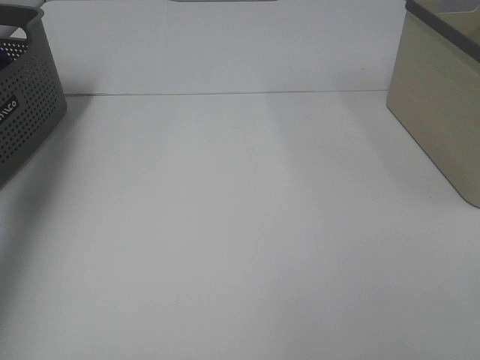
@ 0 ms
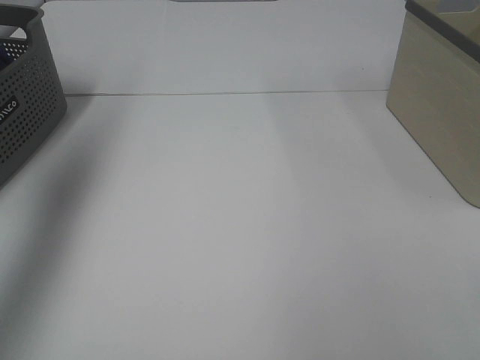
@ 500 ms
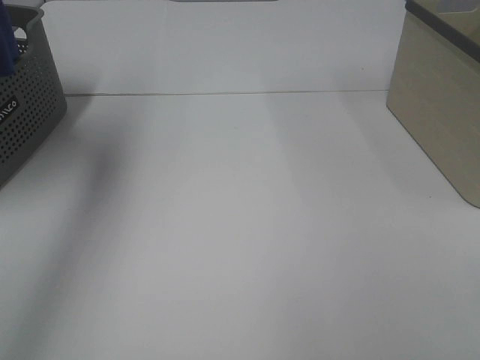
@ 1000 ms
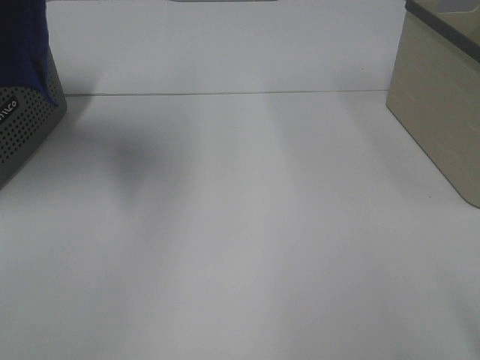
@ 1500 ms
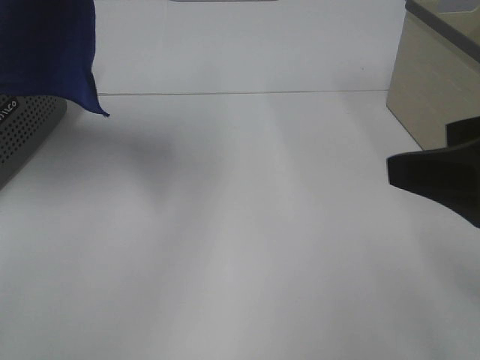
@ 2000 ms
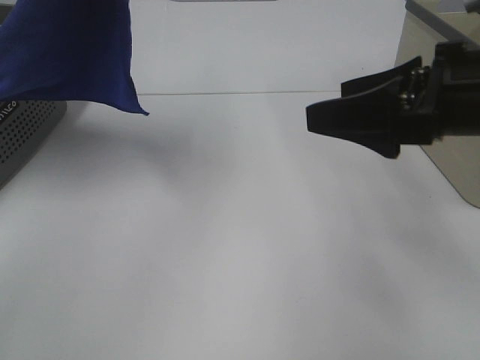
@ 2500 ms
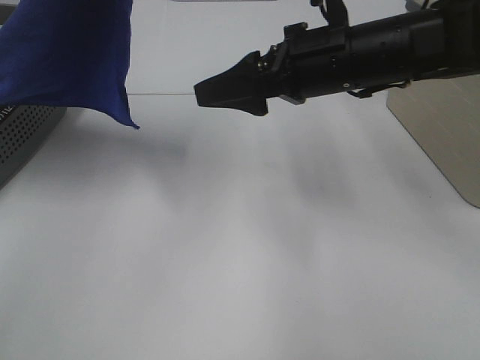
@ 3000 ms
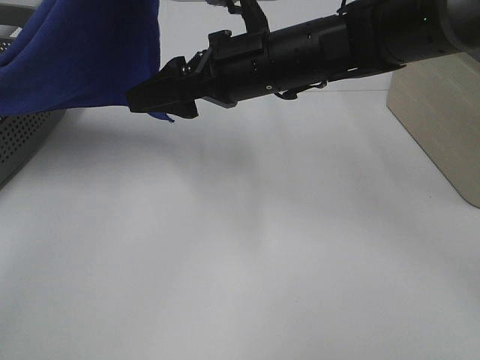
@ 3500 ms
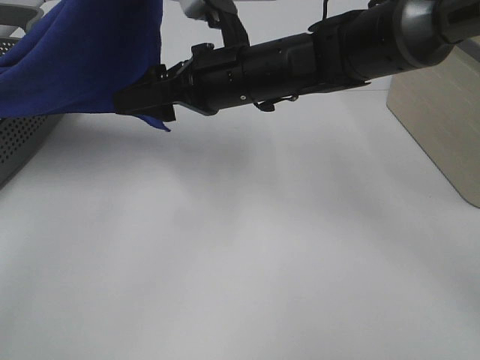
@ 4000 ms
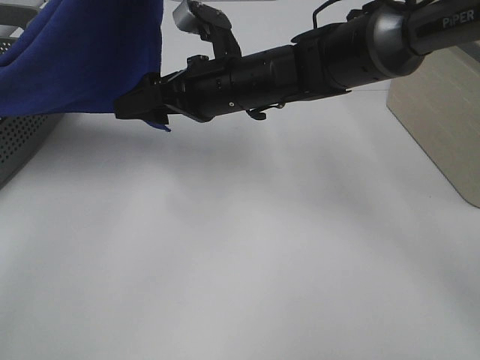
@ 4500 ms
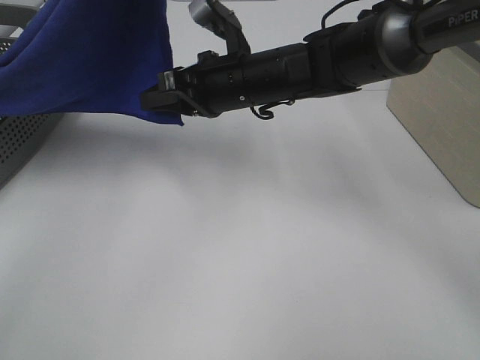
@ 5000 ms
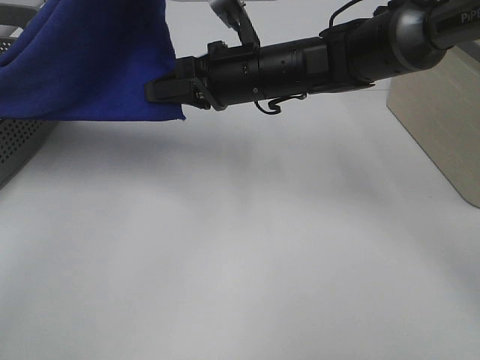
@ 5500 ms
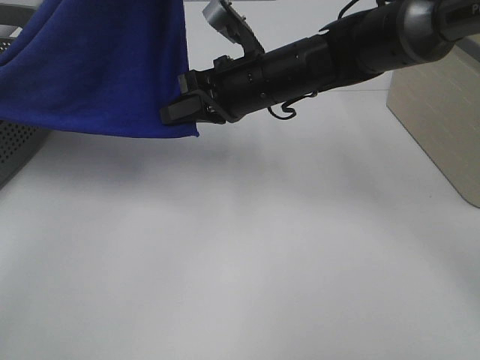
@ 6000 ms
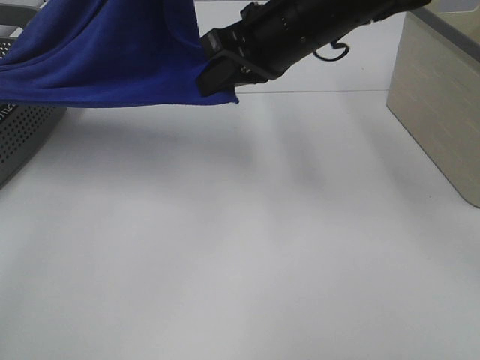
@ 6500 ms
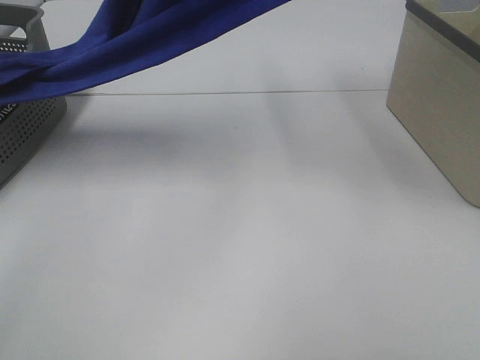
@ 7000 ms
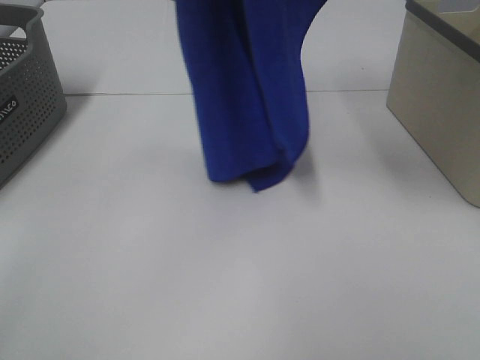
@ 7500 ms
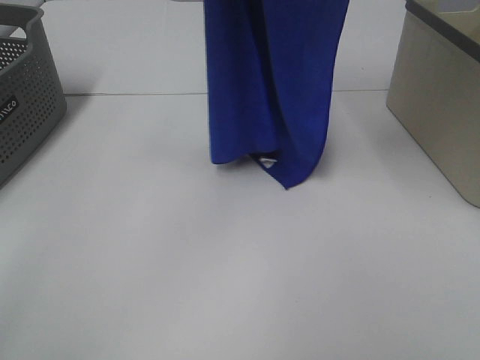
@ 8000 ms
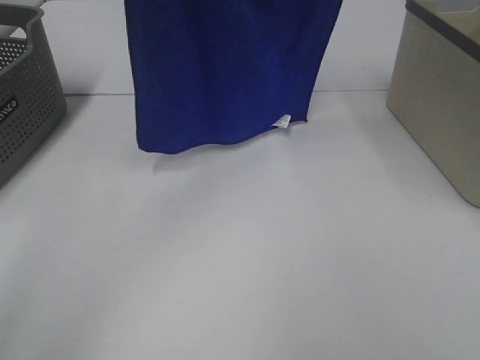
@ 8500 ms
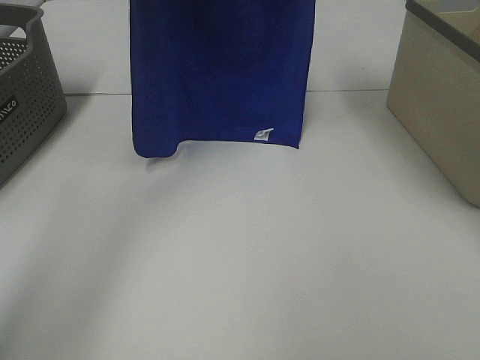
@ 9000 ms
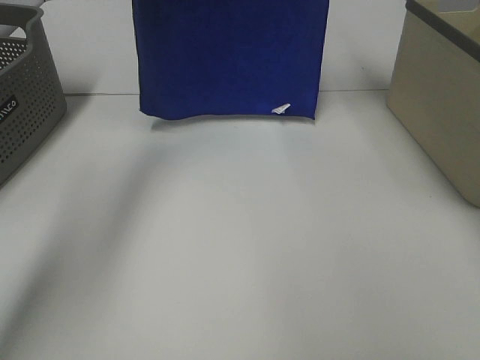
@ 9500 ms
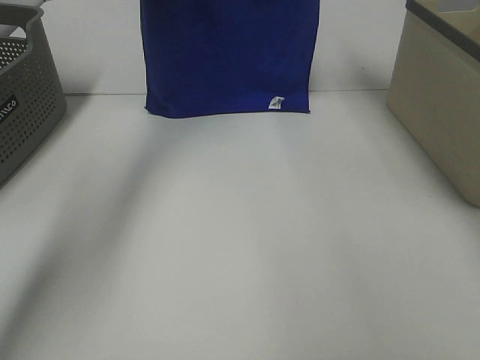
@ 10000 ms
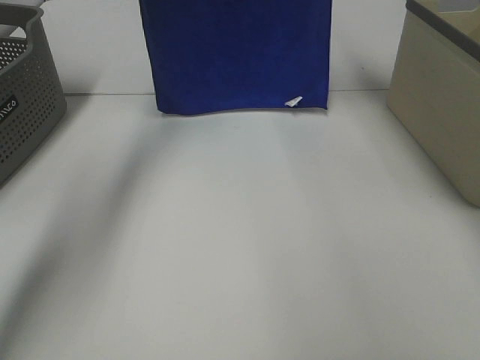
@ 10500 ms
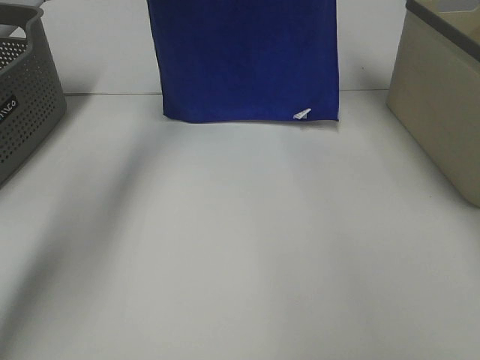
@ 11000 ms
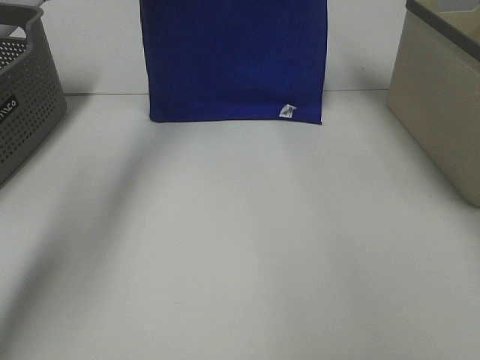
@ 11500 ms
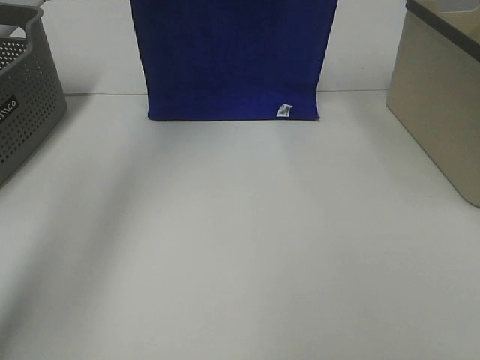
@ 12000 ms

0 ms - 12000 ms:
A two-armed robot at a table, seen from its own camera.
Task of the whole recording: Remove the towel and place it.
Step, 500 ms - 5000 ms: Right hand: grab a corner of the blue towel and straighten it.
0 ms - 2000 ms: The left gripper is displaced to the right, upward and backward by about 30 cm, while the right gripper shifts some 15 cm forward.
2000 ms - 4000 ms: The right gripper goes roughly 30 cm to the left and forward, while the left gripper ends up some 5 cm from where it was.
4000 ms - 6000 ms: The right gripper closes.
6000 ms - 8000 ms: The left gripper is displaced upward by roughly 5 cm. Meanwhile the right gripper goes roughly 35 cm upward and to the right.
8000 ms - 10000 ms: The two grippers go about 15 cm forward and downward.
10000 ms - 12000 ms: The left gripper is displaced backward and upward by approximately 10 cm; the right gripper shifts some 10 cm backward.

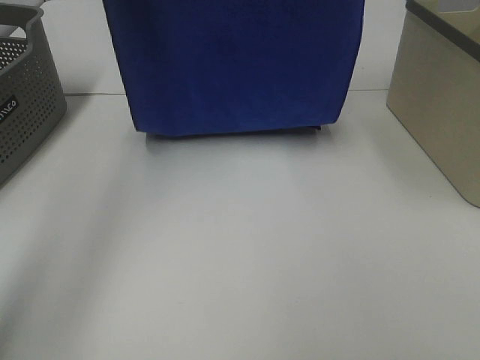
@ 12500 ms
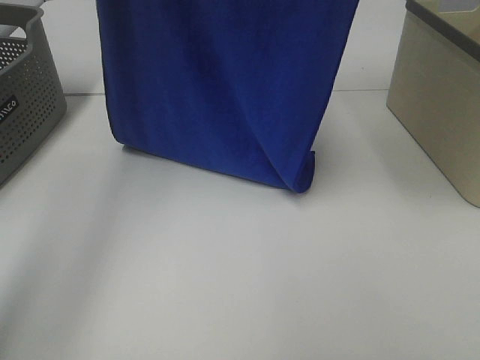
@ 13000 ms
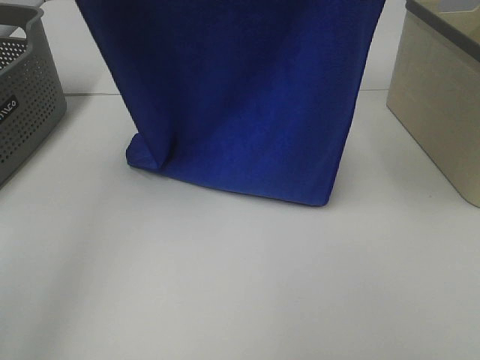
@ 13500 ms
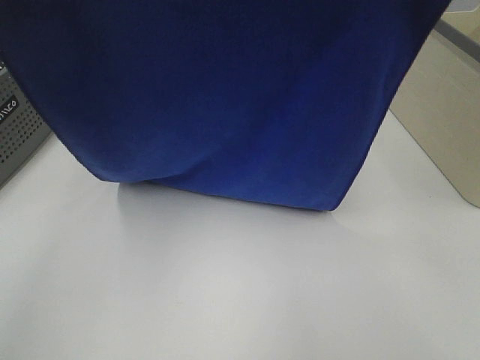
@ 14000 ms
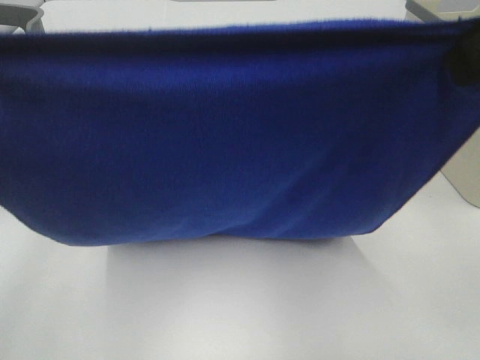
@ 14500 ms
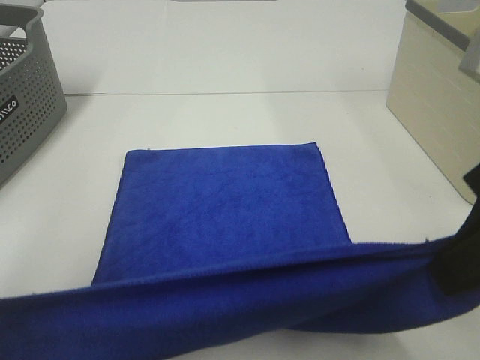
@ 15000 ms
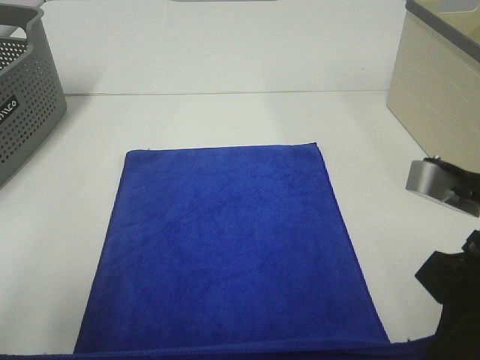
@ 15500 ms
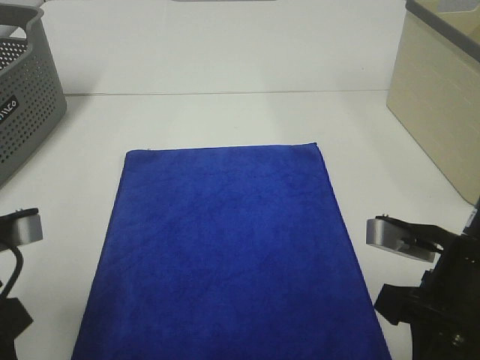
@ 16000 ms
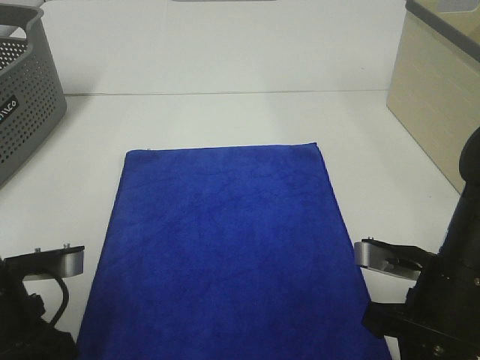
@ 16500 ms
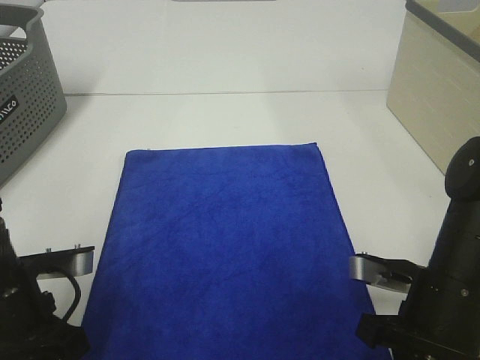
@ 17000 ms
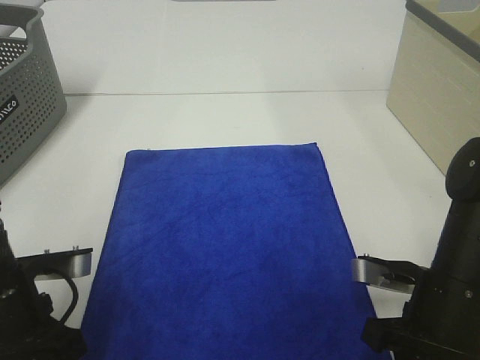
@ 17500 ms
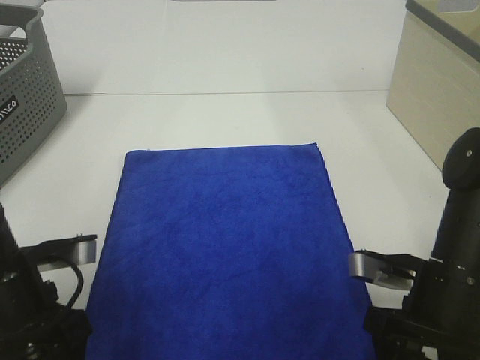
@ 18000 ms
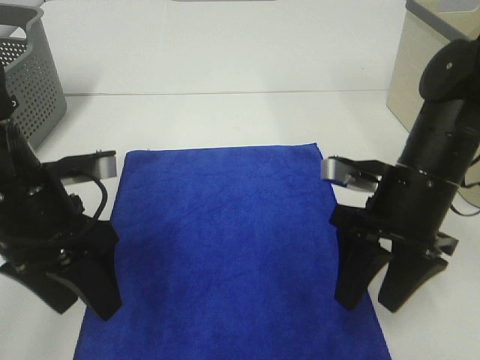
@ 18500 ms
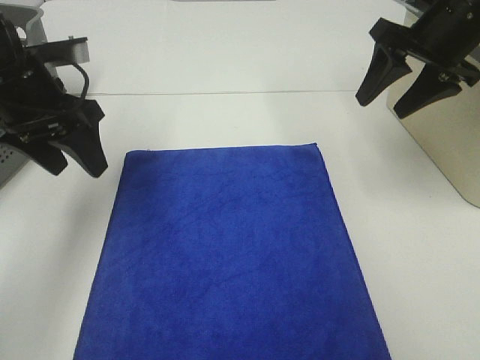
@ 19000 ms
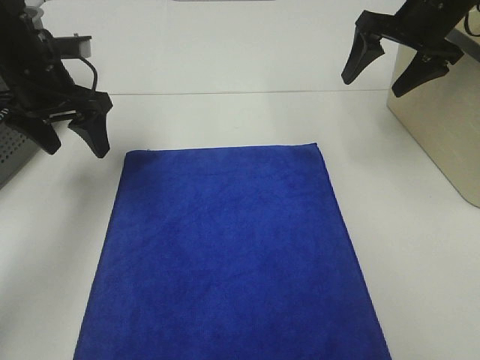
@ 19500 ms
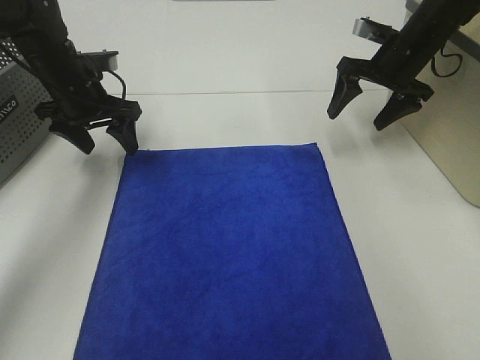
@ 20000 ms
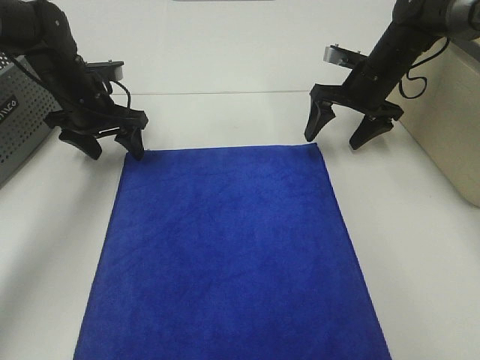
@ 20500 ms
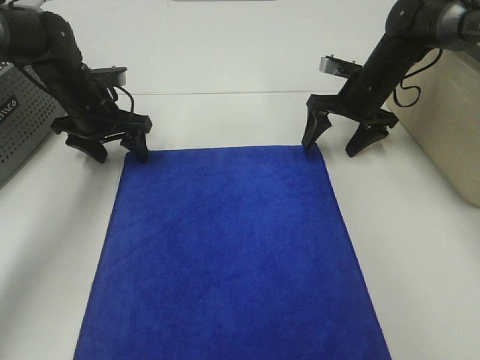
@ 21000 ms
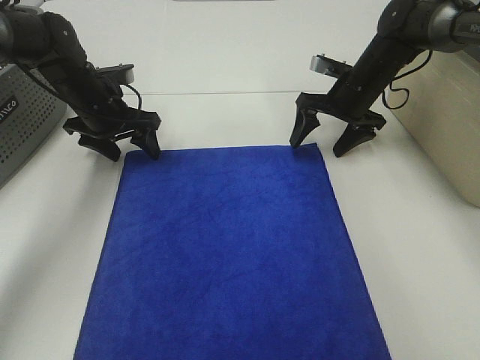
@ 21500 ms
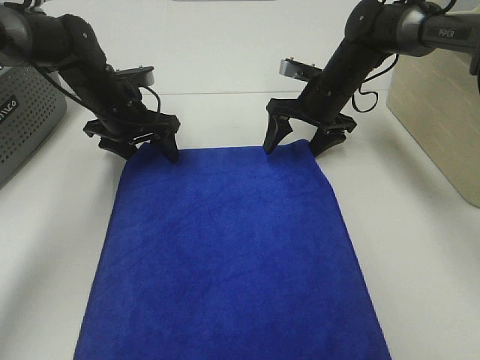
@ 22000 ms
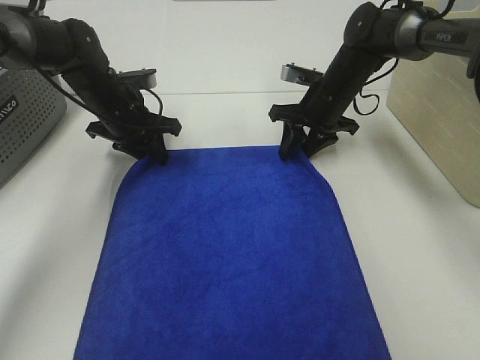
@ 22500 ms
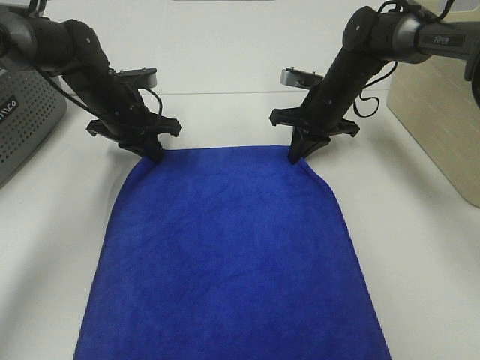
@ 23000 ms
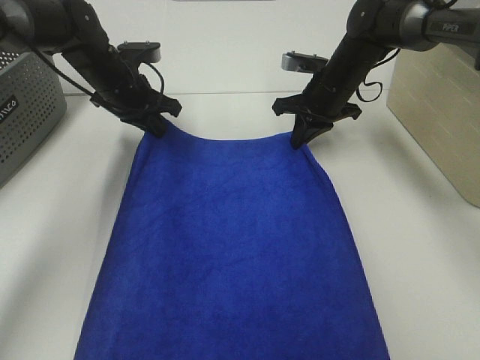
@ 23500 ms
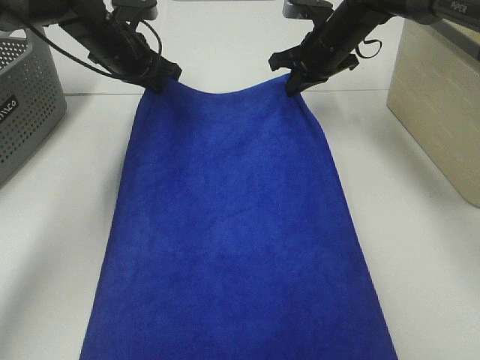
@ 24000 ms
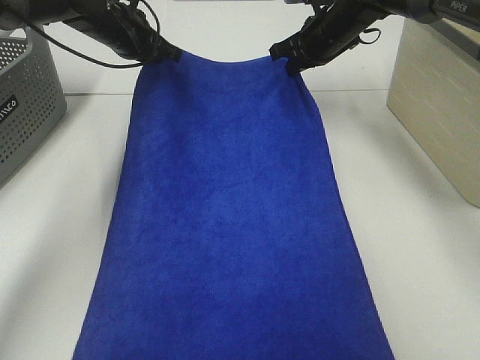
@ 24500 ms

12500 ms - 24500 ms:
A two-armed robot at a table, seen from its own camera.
Task of the whole recording: Remove the towel and place it.
Step, 12500 ms - 20000 ms: Left hand:adjust the blue towel.
Step, 12500 ms - 20000 ms: Right hand:adjust the blue towel.
12500 ms - 14500 ms: Both grippers move backward and downward, some 25 cm.
14500 ms - 16500 ms: Both grippers travel together downward, roughly 25 cm.
16500 ms - 18500 ms: The left gripper heads forward and upward, covering approximately 10 cm, and opens its fingers. Meanwhile the right gripper is displaced forward by roughly 10 cm, and opens its fingers.
18500 ms - 20500 ms: Both grippers move forward, some 25 cm.
20500 ms - 22500 ms: The left gripper closes up; the right gripper heads to the left, covering about 5 cm, and closes its fingers.
22500 ms - 24500 ms: The grippers both shift upward and forward by roughly 10 cm. The right gripper closes its fingers.

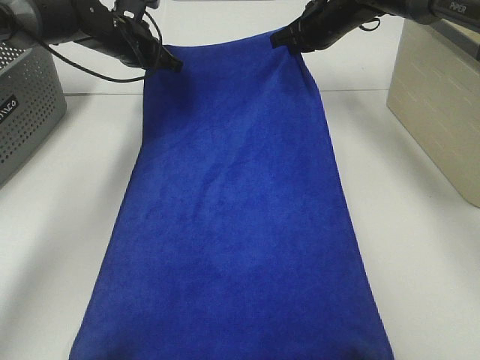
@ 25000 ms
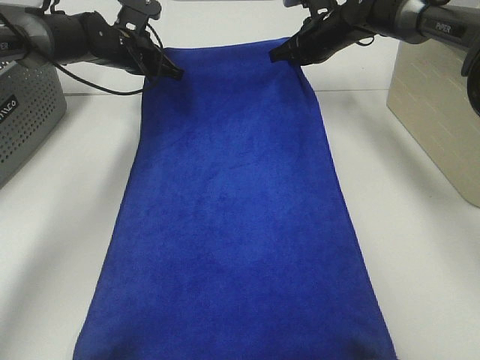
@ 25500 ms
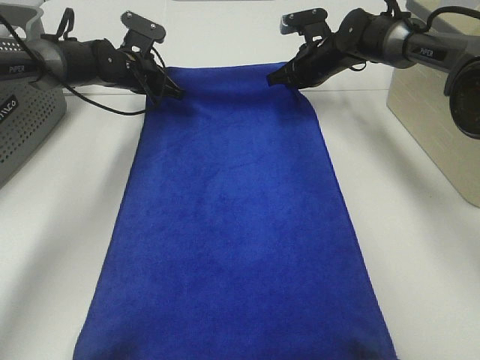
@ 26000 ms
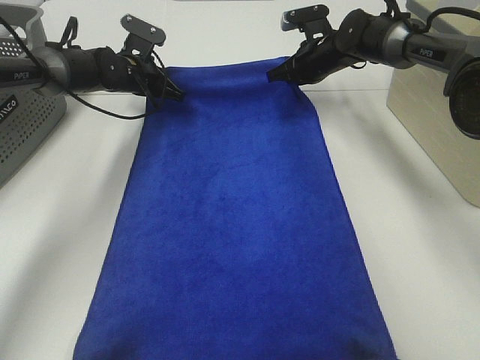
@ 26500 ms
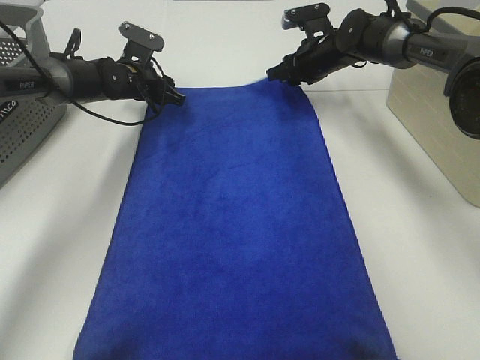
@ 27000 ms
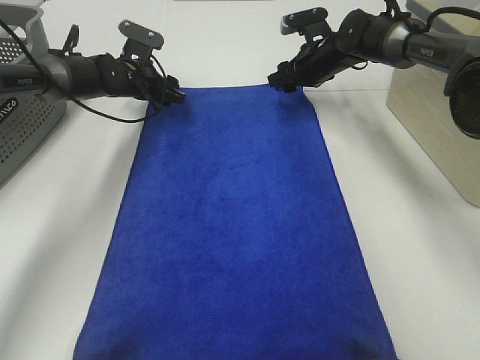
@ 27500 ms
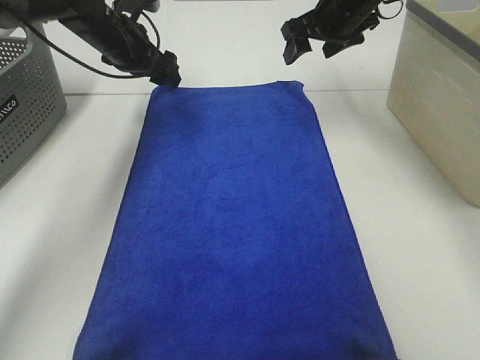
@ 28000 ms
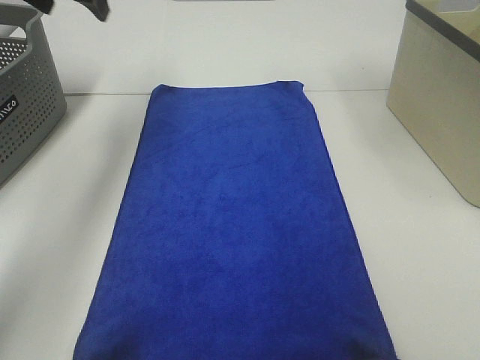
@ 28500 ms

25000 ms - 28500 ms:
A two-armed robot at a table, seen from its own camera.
Task of the whole recording: Remove the towel and place it.
25000 ms - 27000 ms: Both grippers travel together downward, some 5 cm. The left gripper opens its fingers, while the right gripper opens its fingers.
27000 ms - 28500 ms: The grippers both shift upward and backward by roughly 25 cm.
